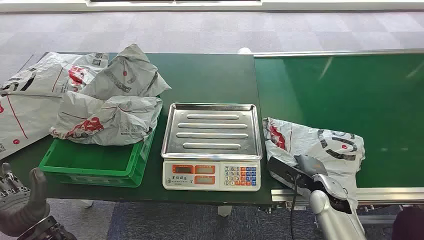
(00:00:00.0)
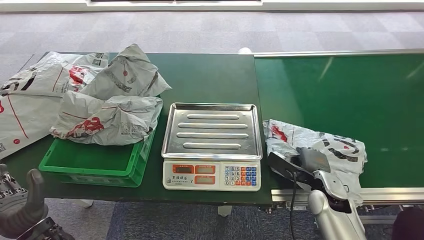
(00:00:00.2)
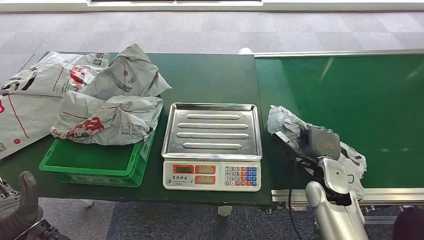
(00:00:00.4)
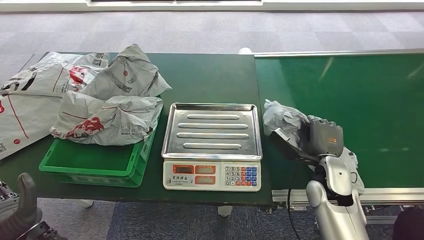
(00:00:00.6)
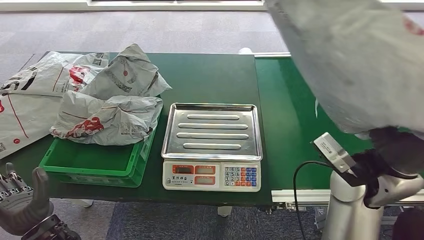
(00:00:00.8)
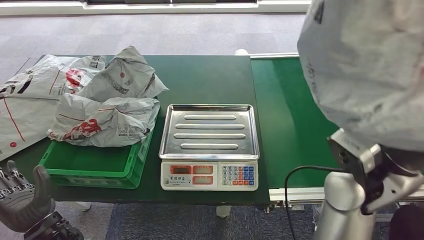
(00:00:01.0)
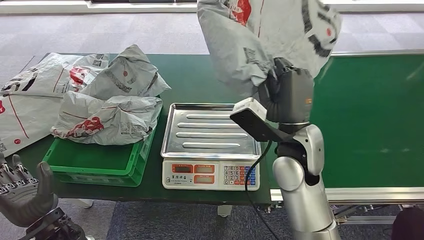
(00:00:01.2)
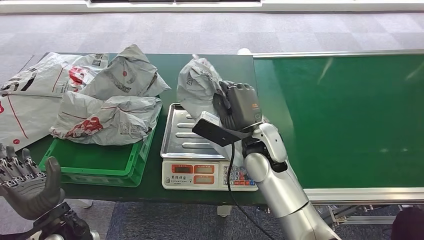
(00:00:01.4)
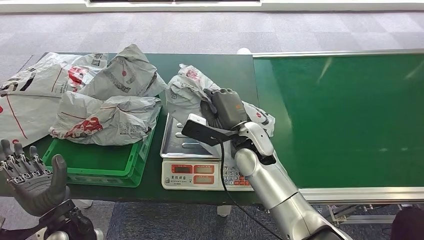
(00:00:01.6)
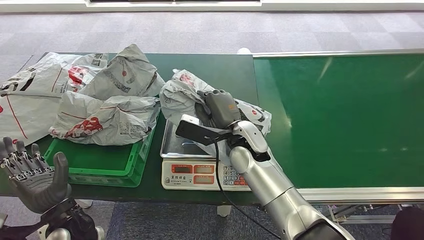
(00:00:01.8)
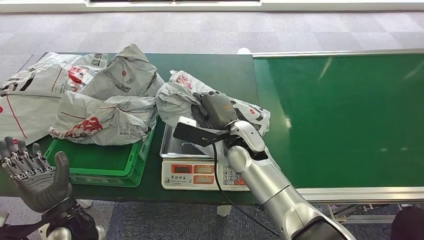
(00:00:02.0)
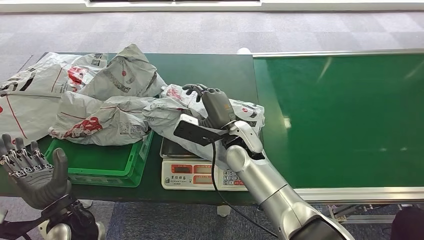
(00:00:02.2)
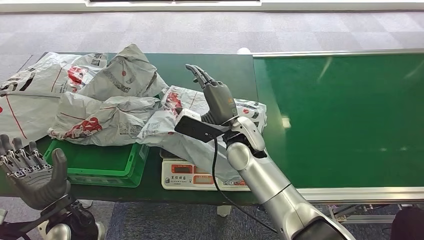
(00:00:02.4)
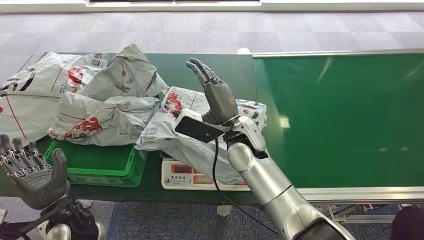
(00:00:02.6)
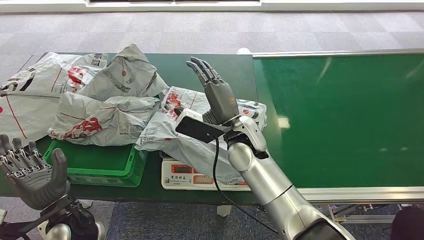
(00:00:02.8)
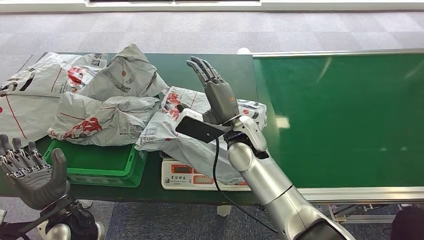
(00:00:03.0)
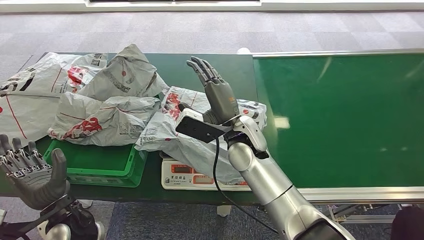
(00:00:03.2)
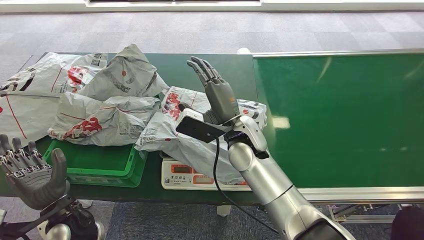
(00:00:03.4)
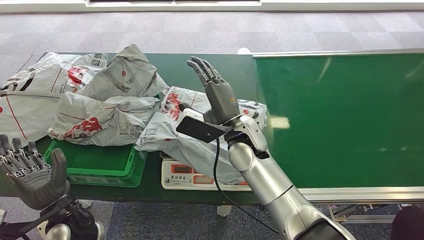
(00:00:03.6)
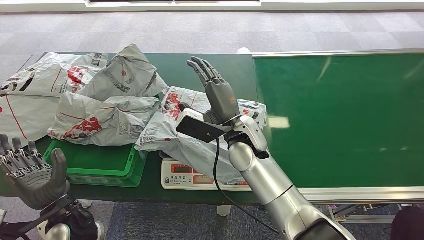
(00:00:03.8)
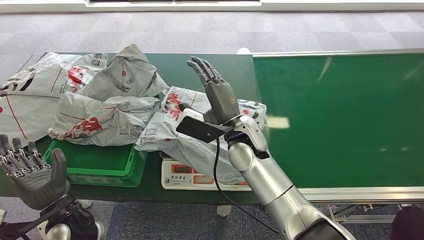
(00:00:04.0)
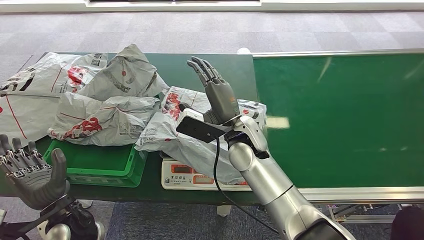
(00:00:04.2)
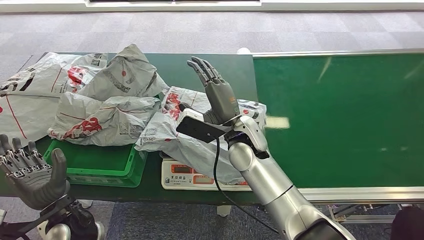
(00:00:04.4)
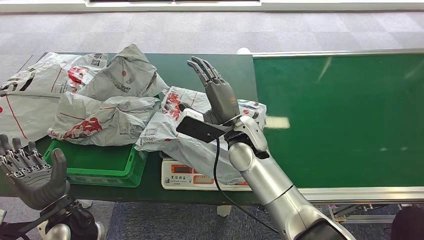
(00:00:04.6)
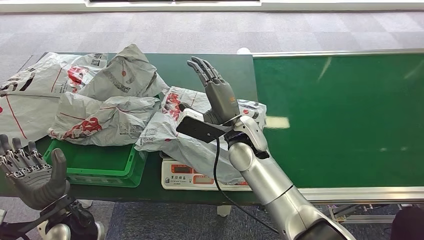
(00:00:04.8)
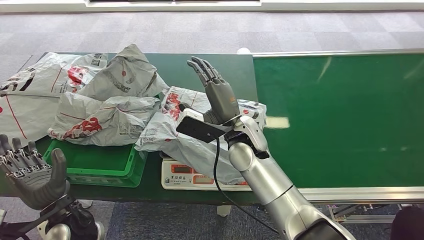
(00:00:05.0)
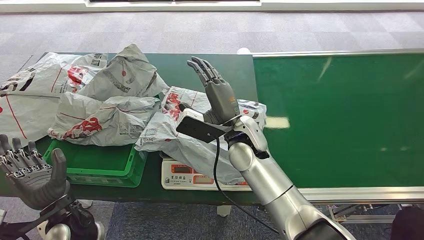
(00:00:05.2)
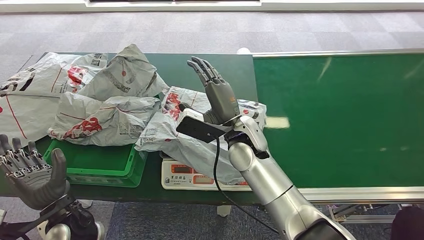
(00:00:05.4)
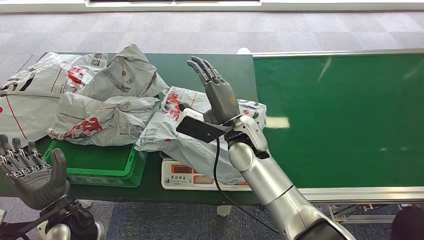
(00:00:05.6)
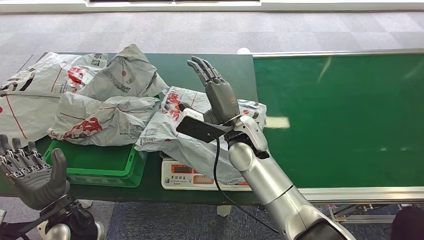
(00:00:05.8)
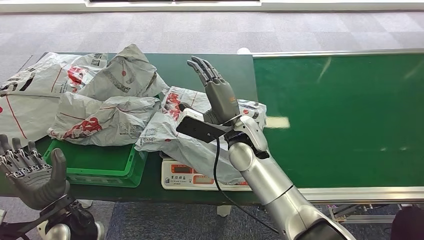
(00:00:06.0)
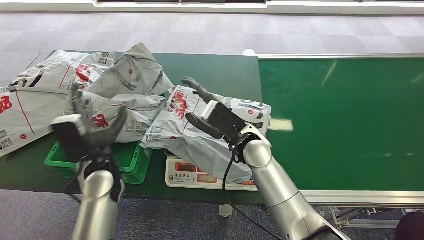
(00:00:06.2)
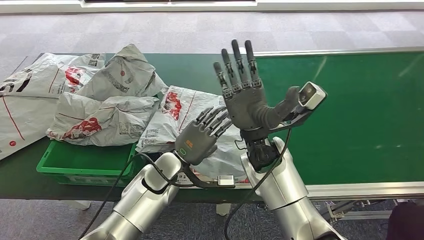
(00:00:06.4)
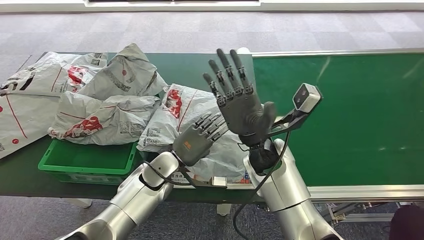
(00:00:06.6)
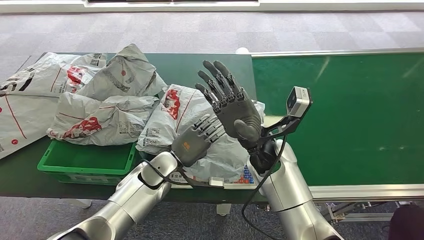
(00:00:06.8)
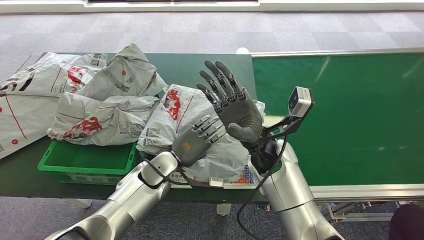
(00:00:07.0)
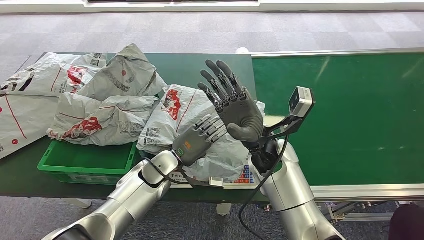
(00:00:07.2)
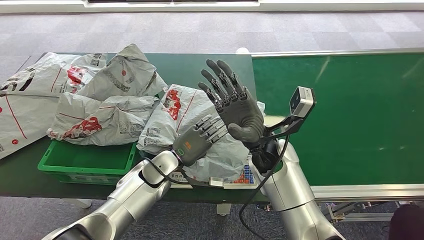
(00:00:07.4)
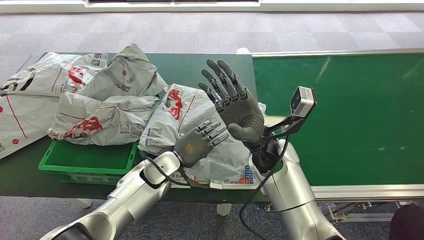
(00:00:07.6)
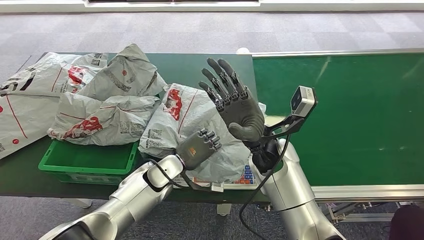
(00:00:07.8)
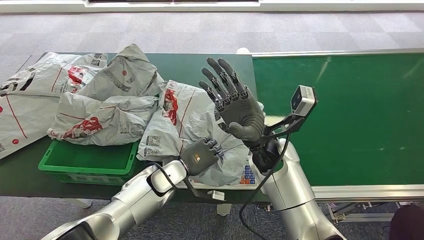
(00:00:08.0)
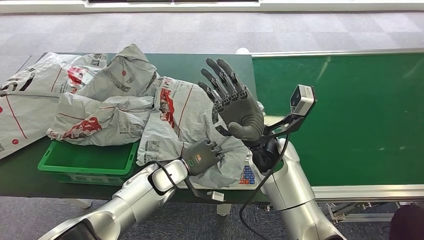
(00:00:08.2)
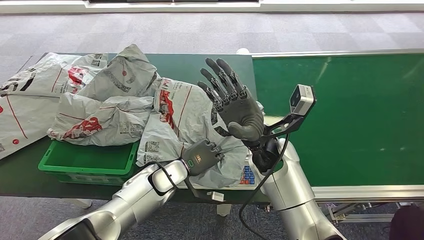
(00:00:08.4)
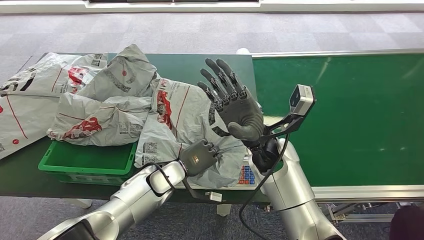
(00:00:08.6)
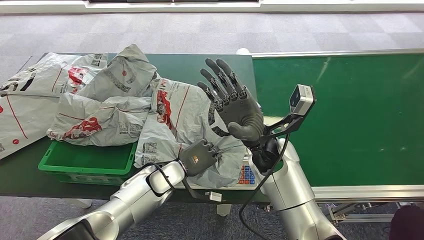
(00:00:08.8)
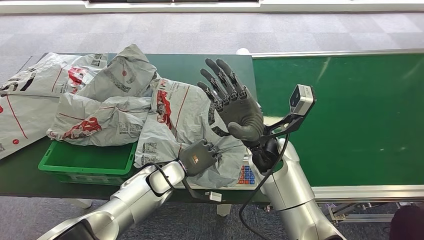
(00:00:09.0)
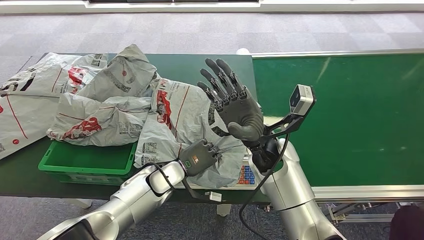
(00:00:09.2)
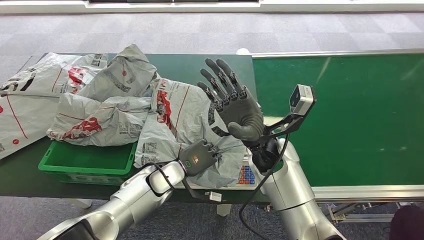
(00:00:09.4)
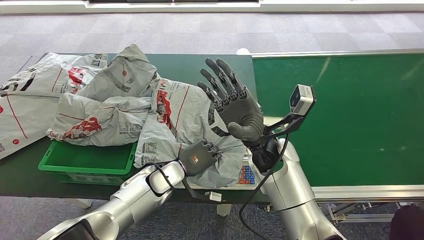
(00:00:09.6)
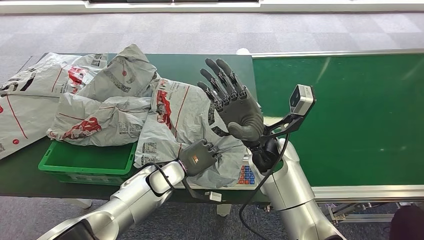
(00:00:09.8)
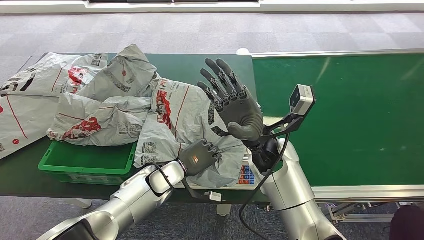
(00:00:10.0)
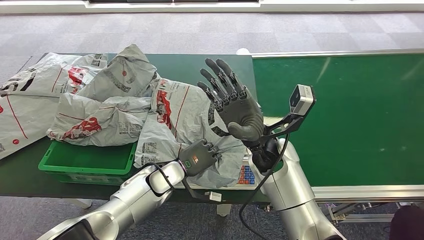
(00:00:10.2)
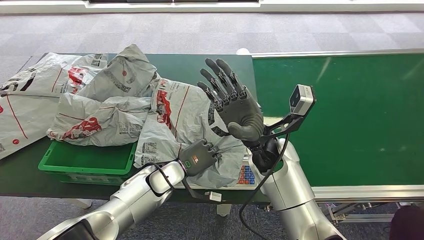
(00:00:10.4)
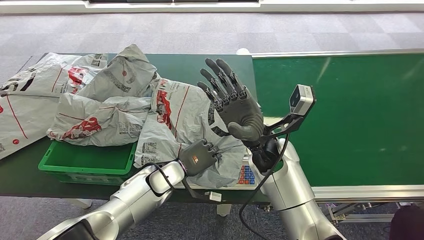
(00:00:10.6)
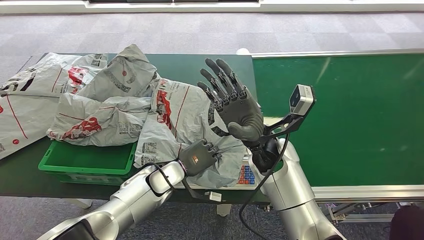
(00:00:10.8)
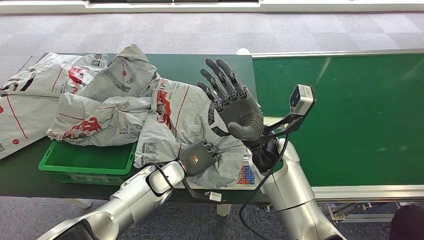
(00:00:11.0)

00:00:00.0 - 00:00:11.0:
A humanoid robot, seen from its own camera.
Step, 00:00:00.0 - 00:00:00.6: Pick up the package from the conveyor belt.
Step, 00:00:01.4 - 00:00:03.4: Place the package onto the inbound machine.
00:00:01.6 - 00:00:03.2: The hands move only a little.
00:00:03.2 - 00:00:04.8: Neither hand changes place.
00:00:07.8 - 00:00:09.4: The hands move only a little.
00:00:09.4 - 00:00:11.0: Both hands stay about where they are.

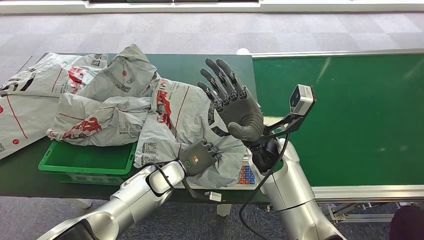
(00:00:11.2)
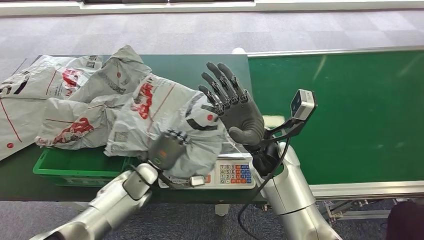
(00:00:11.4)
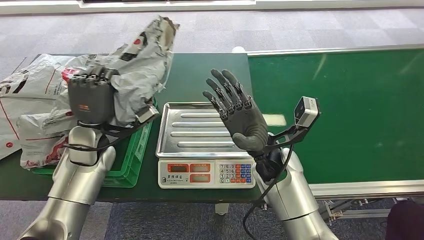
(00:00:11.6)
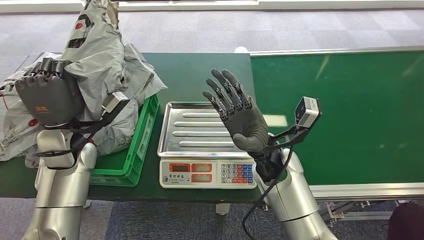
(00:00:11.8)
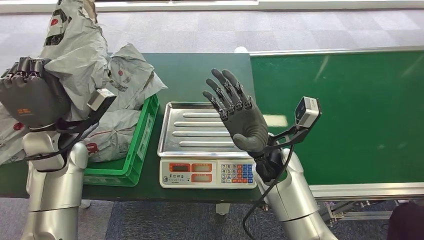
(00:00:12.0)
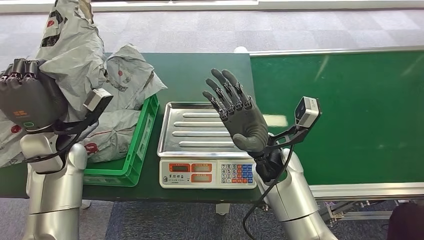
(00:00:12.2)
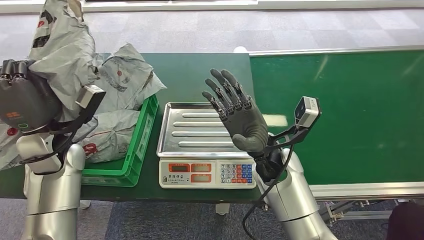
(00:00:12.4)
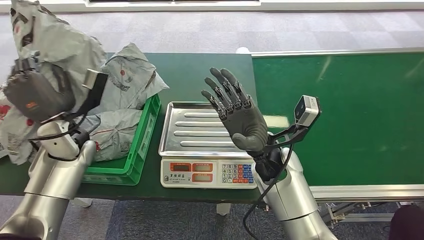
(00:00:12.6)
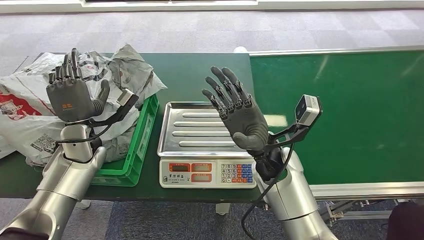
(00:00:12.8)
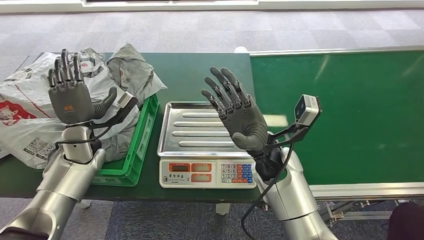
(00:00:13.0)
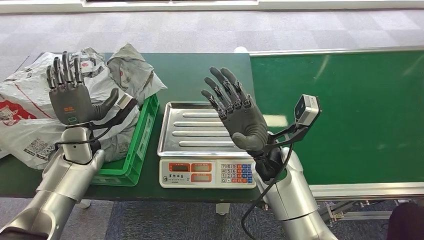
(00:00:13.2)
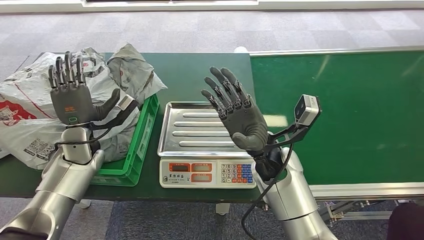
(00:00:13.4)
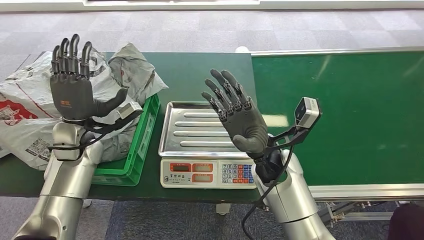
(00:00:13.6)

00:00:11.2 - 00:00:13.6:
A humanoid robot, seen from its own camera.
Step, 00:00:12.0 - 00:00:13.6: Place the package into the parcel locker.
